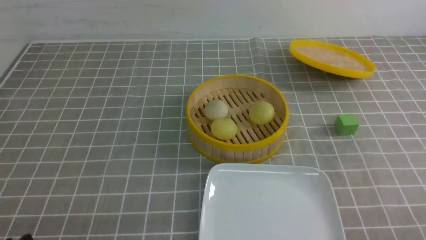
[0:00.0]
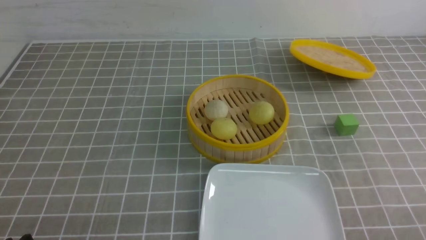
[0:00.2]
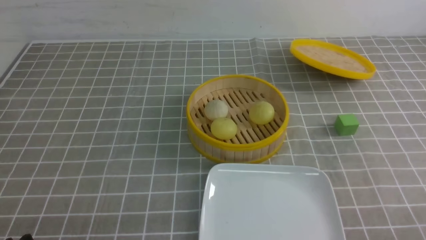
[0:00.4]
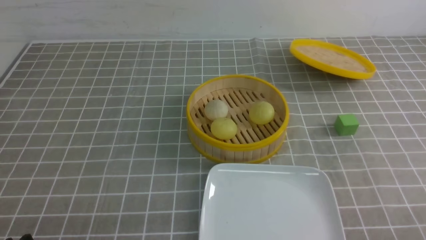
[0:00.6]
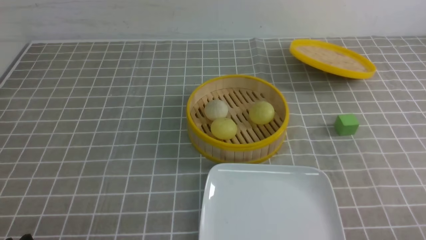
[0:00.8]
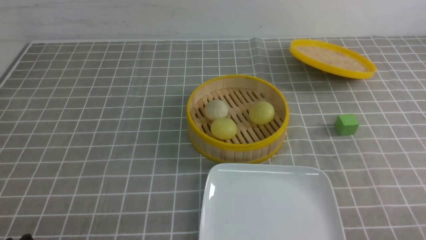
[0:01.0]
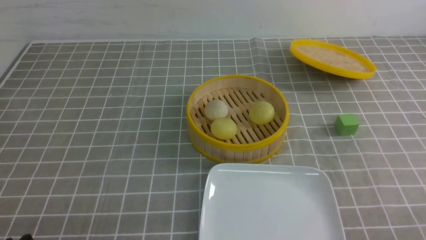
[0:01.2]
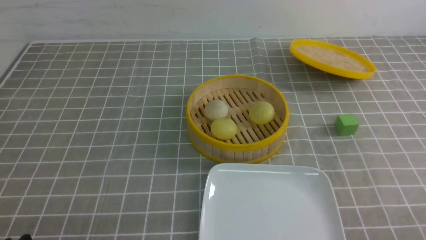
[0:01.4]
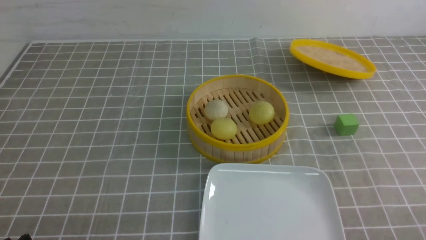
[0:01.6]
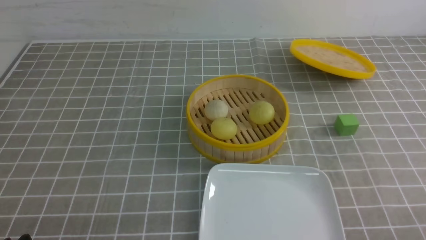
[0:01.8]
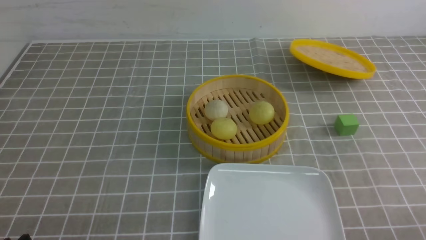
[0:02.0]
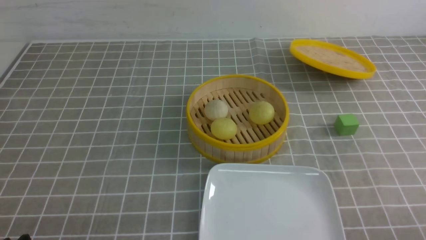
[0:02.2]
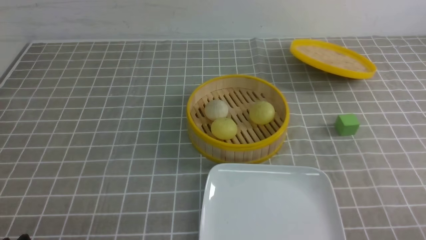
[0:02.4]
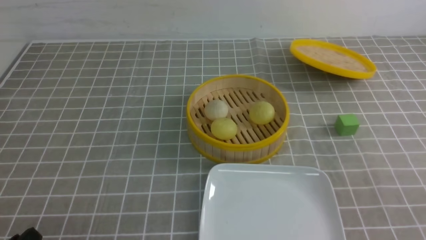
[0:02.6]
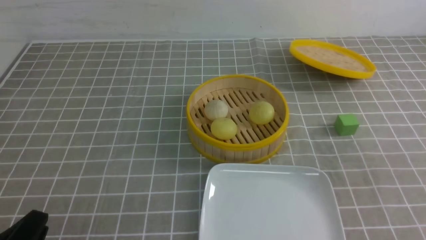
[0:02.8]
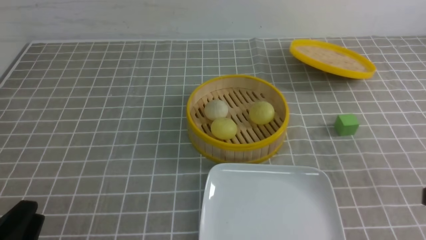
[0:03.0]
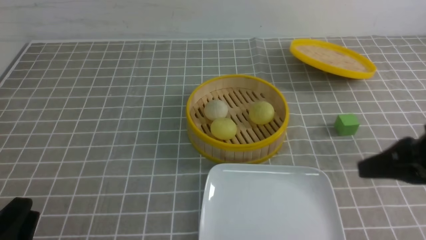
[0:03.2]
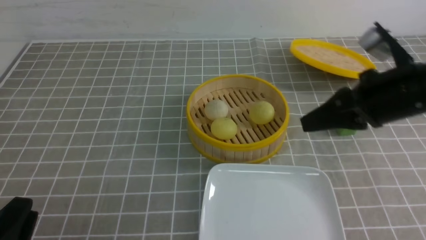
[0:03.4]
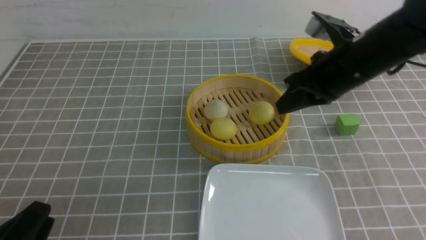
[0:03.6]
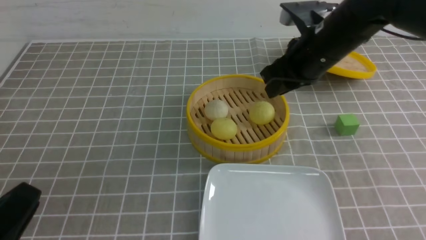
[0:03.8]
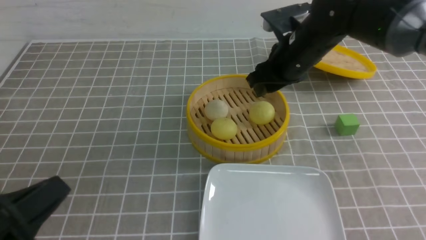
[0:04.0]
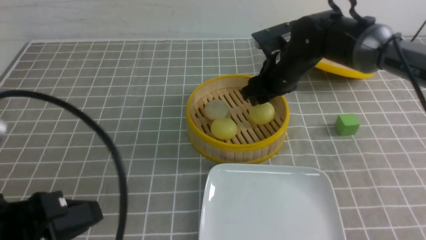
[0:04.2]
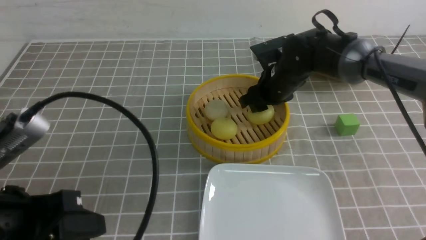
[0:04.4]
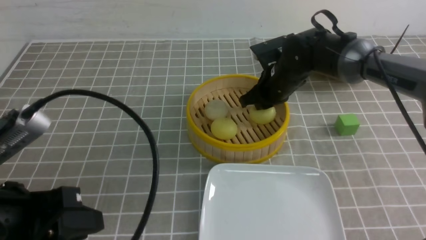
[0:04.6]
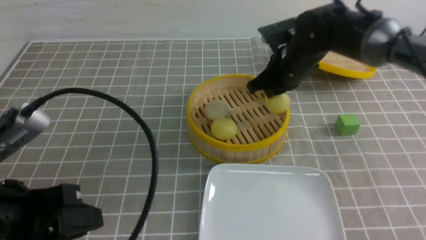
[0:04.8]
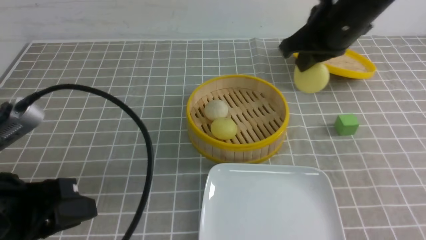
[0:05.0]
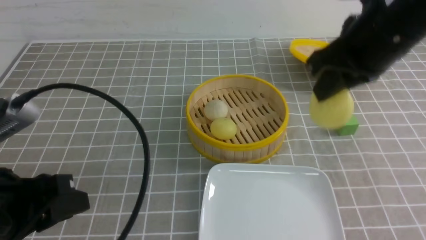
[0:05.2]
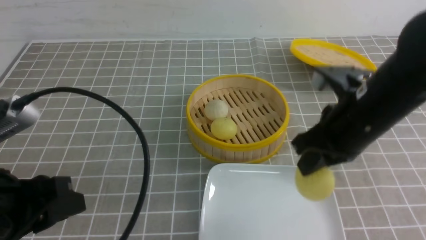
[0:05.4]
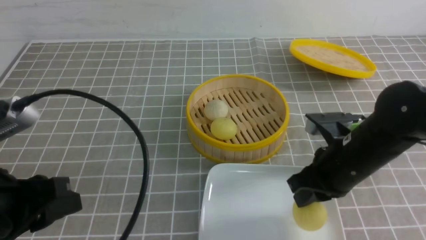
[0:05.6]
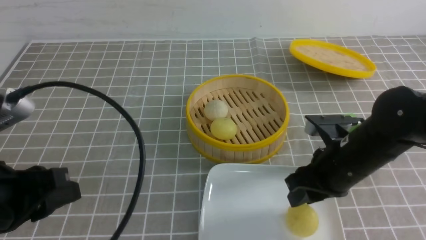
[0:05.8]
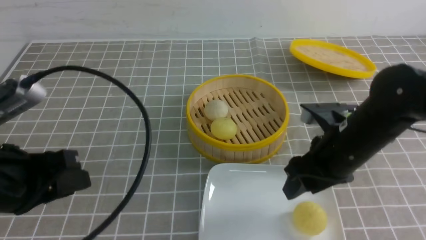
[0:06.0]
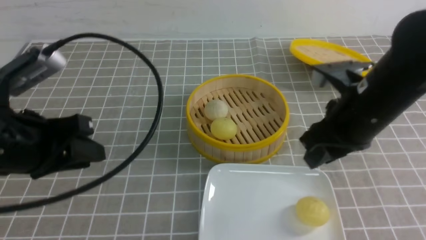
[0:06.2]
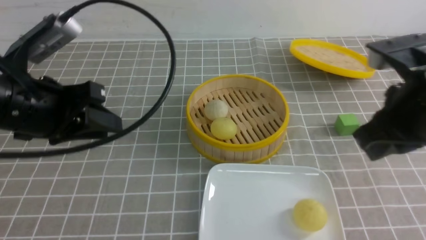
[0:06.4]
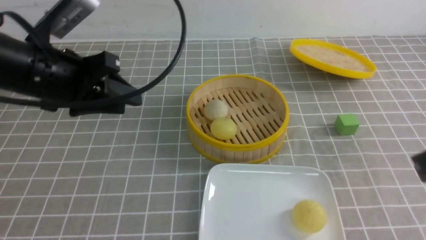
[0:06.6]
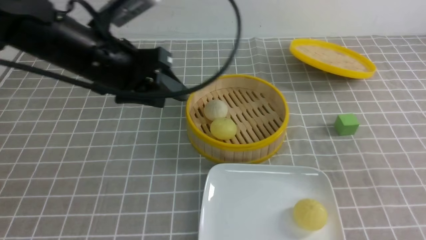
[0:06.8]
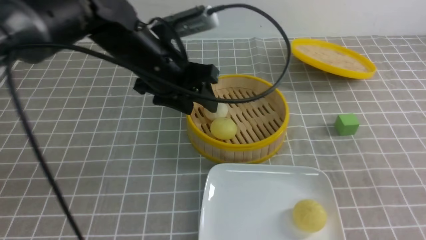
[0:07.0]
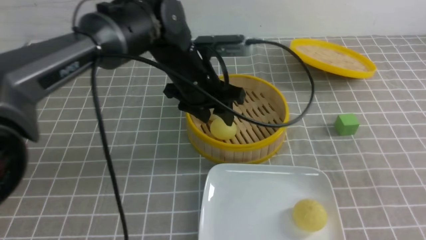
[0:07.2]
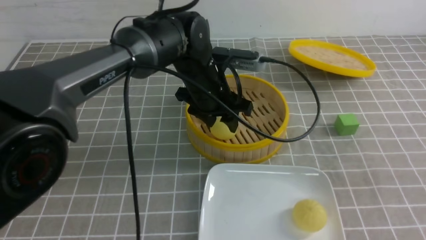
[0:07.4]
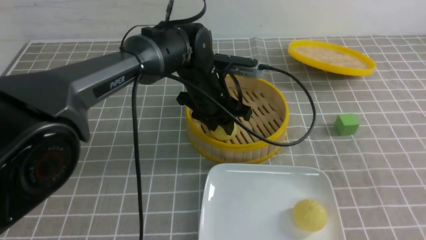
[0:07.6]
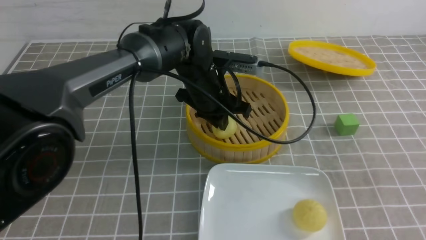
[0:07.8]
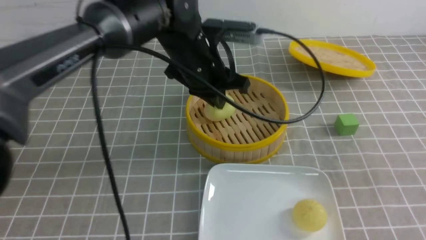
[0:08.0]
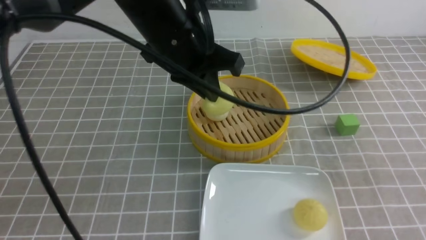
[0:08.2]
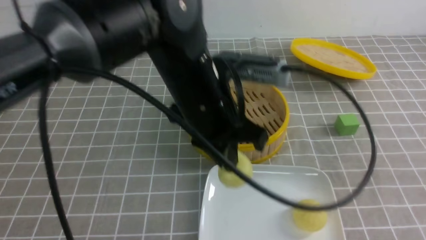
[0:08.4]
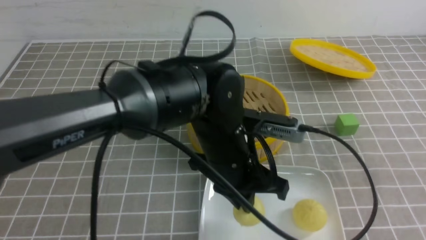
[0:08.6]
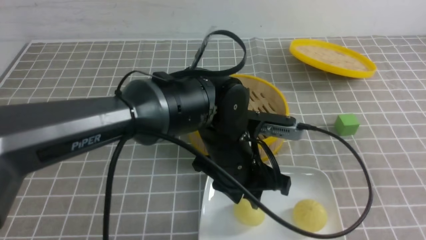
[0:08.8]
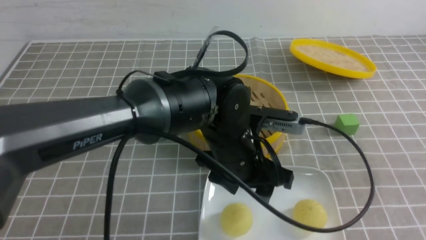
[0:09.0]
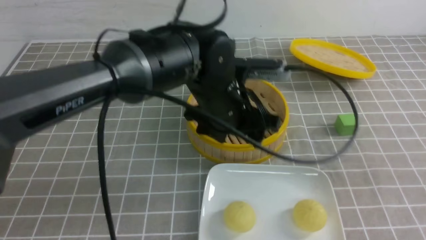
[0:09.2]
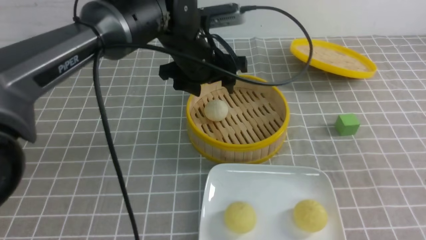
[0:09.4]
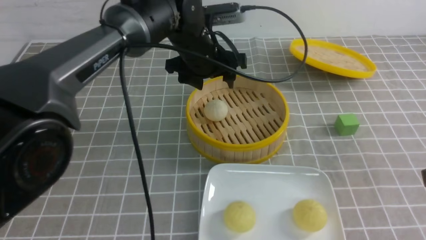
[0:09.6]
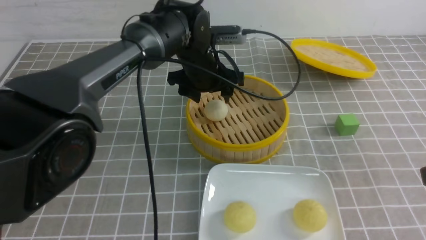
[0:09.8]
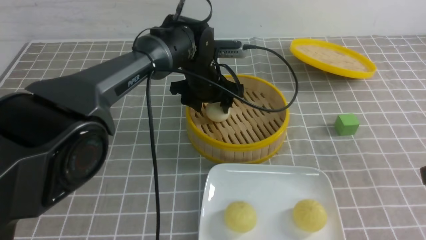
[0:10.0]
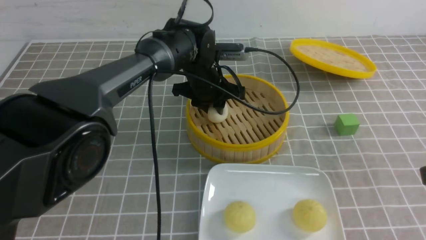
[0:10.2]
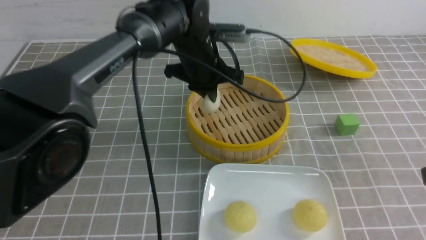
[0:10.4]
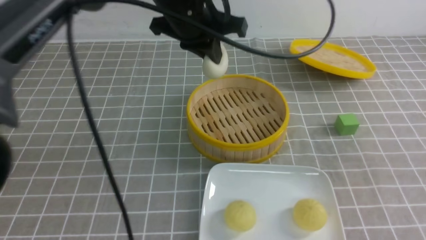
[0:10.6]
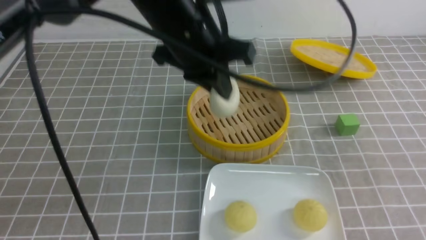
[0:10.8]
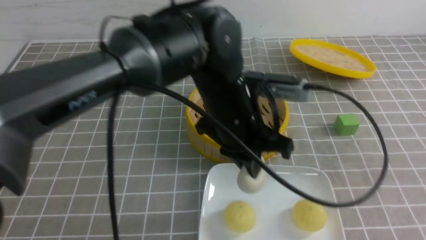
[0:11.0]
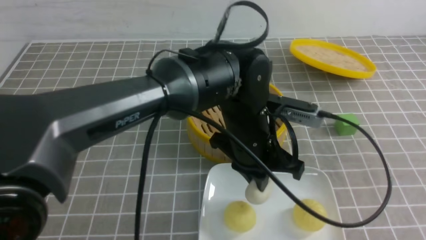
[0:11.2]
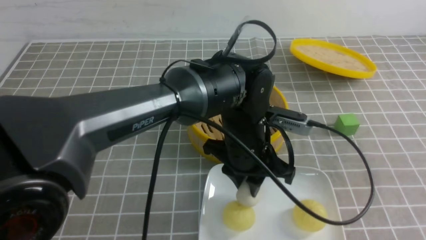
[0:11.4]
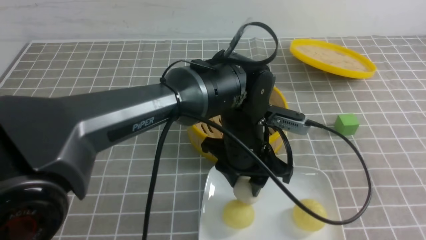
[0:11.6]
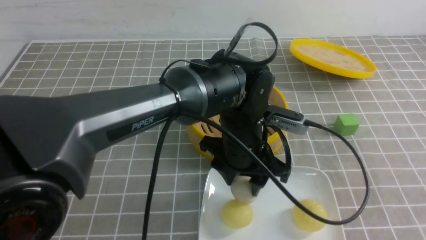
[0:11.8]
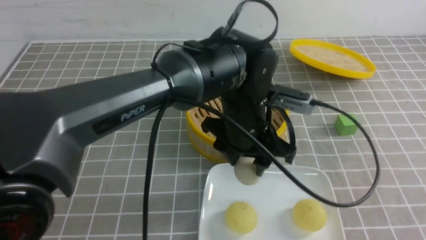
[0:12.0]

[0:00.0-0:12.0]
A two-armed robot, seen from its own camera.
Step, 0:00.0 to 0:04.6: use the right arm to grab the steamed stuffed bun that is closest to it.
Step, 0:04.8 to 0:06.0: use the right arm to put the steamed stuffed bun into the plate.
Step, 0:06.2 to 0:07.8: use the left arm to grab the steamed stuffed bun that is closest to it.
Step, 0:08.0 to 0:09.0: use the left arm to put the steamed stuffed bun into the plate.
Step, 0:09.2 to 0:10.2: use the left arm to grab the steamed stuffed bun that is closest to it.
0:00.0 to 0:01.6: Both grippers stay put.
0:03.0 to 0:04.4: The right gripper heads forward and to the left, covering about 35 cm, and opens. The left gripper travels upward and forward by approximately 10 cm.
0:04.4 to 0:06.0: The right gripper is displaced backward by about 20 cm, and closes, then opens again. The left gripper heads forward, covering approximately 5 cm.
0:06.0 to 0:07.6: The right gripper heads backward, to the right and upward, covering approximately 20 cm, and closes up. The left gripper is displaced forward and to the right by about 30 cm.
0:07.6 to 0:09.0: The left gripper travels backward by some 10 cm, and opens.
0:09.0 to 0:10.4: The left gripper travels forward by about 15 cm, and closes.
0:10.4 to 0:12.0: Both grippers travel together backward and to the right, about 15 cm. The left gripper opens.

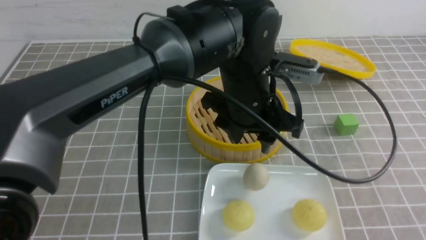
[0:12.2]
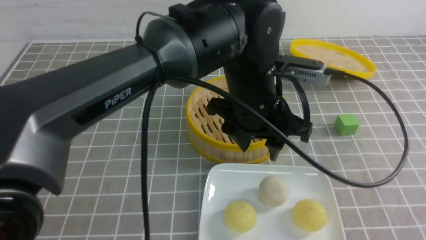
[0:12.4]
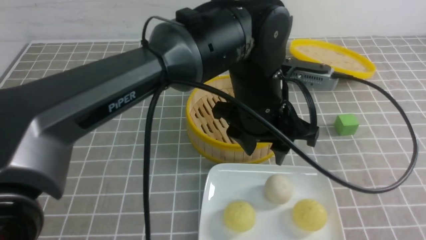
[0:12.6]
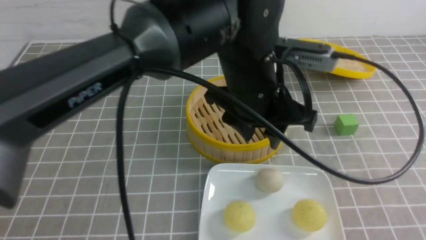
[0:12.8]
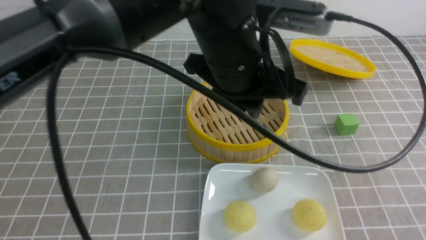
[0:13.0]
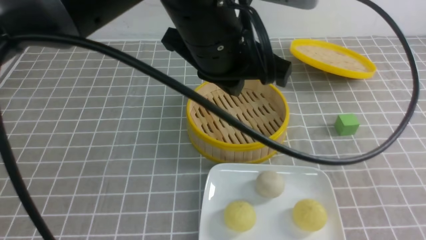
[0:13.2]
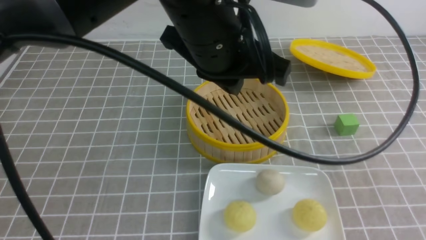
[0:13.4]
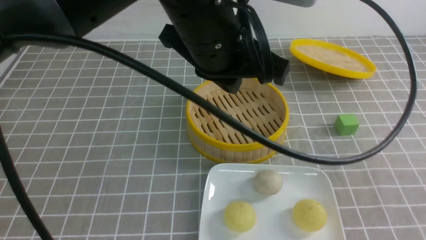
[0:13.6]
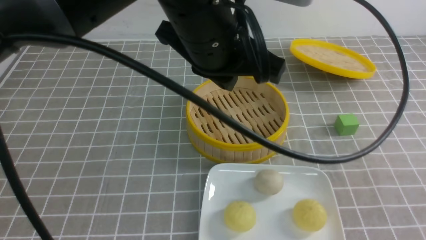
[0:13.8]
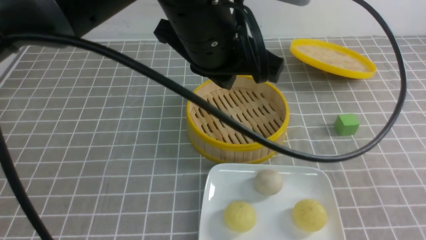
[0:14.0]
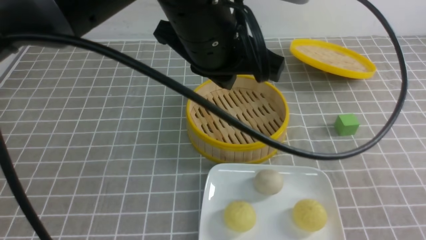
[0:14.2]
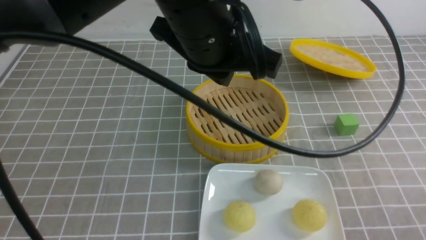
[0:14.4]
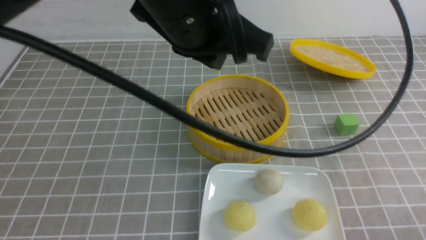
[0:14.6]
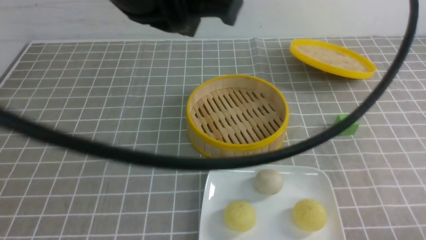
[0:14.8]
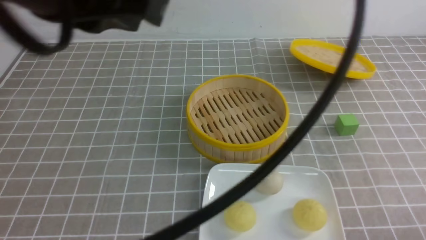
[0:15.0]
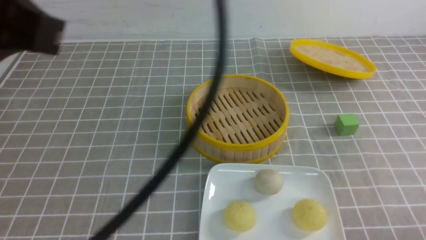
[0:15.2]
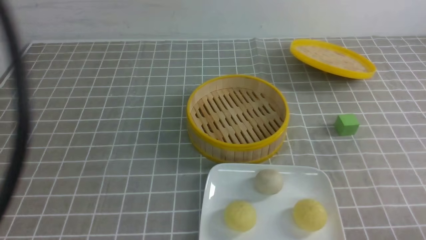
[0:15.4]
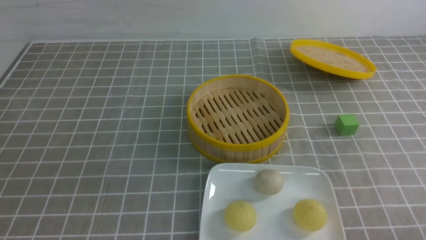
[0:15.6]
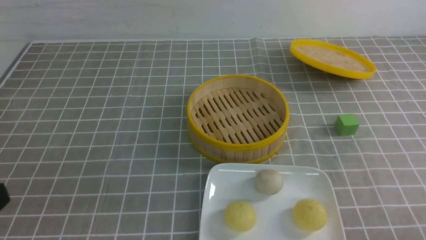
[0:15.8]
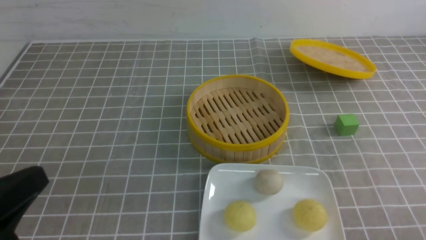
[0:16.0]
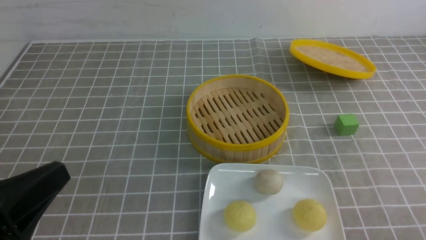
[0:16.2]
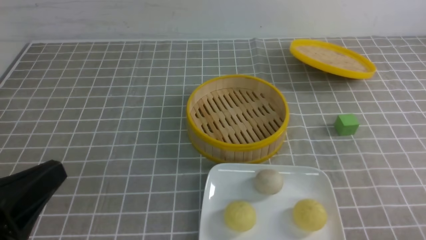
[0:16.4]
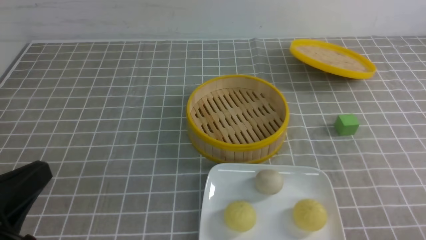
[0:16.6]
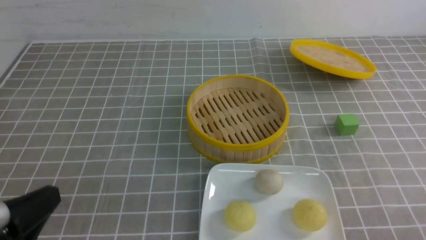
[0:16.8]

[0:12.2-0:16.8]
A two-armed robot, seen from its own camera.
0:12.2 to 0:13.8: The right gripper goes approximately 10 cm downward and forward; the left gripper is displaced upward and to the left by some 15 cm, and closes.
0:13.8 to 0:15.2: The left gripper travels to the left, backward and upward by approximately 25 cm. Meanwhile the right gripper travels downward by about 10 cm.
0:15.2 to 0:16.8: The left gripper moves downward, some 20 cm.
